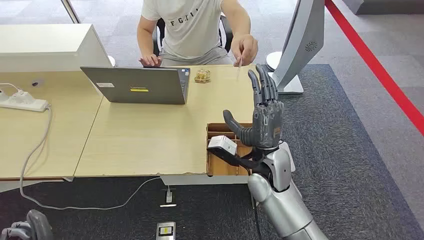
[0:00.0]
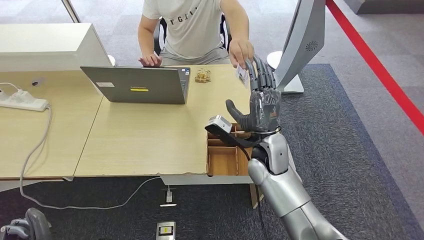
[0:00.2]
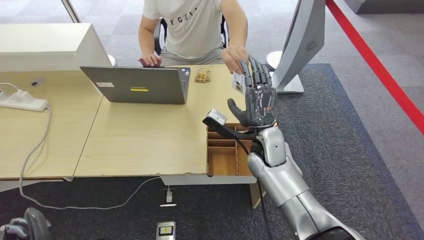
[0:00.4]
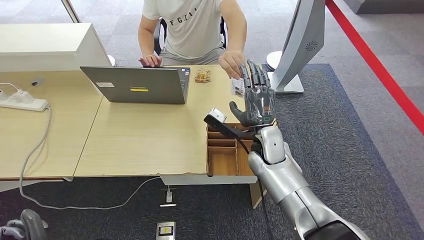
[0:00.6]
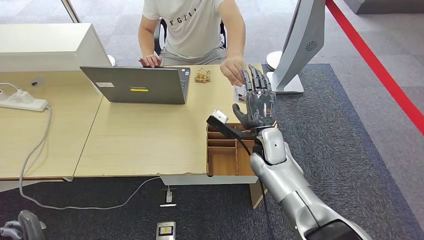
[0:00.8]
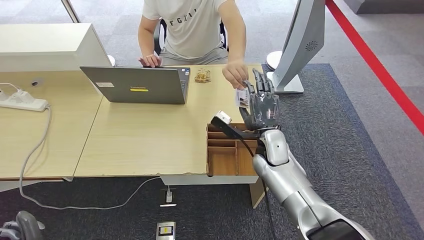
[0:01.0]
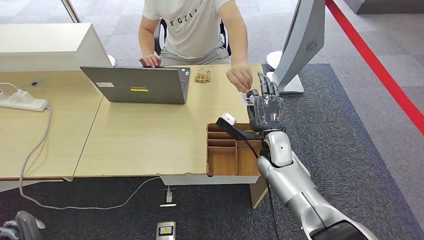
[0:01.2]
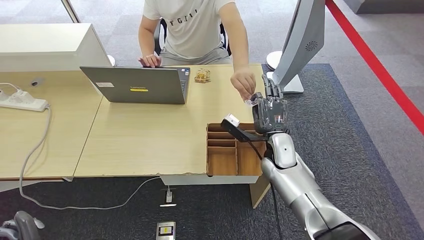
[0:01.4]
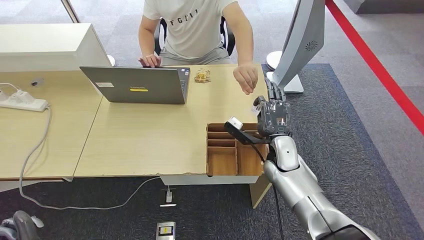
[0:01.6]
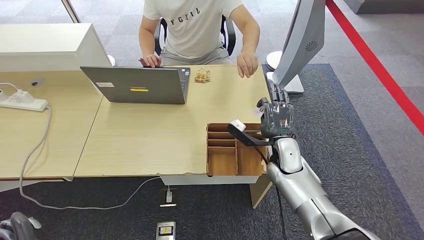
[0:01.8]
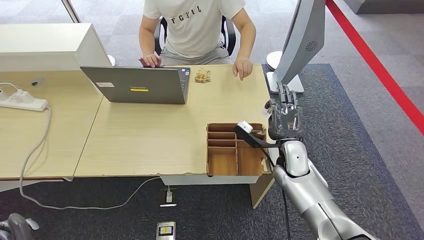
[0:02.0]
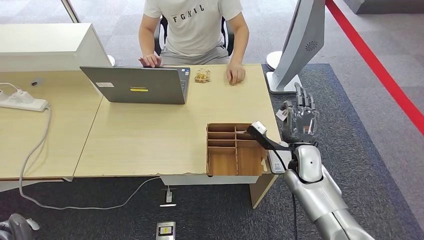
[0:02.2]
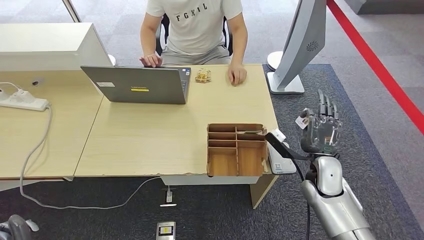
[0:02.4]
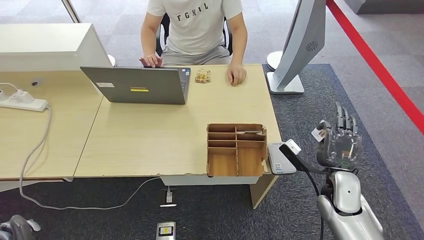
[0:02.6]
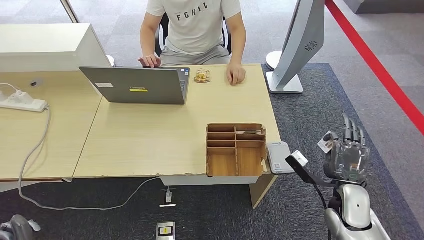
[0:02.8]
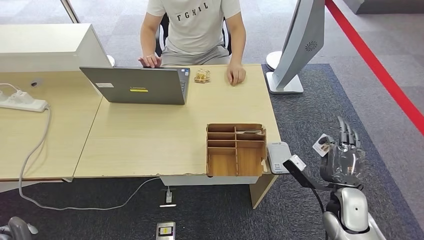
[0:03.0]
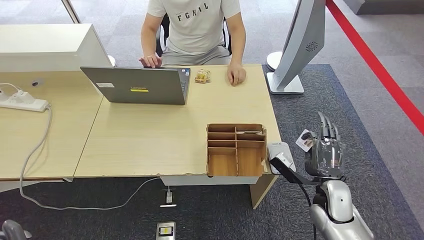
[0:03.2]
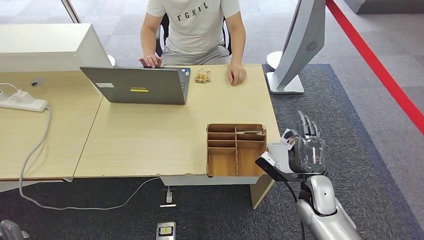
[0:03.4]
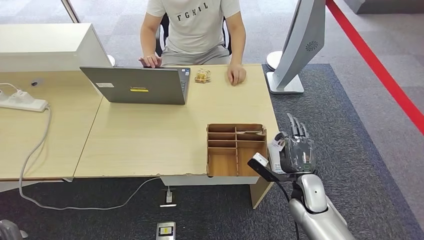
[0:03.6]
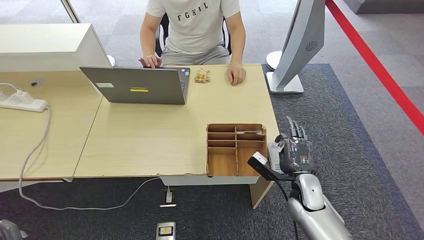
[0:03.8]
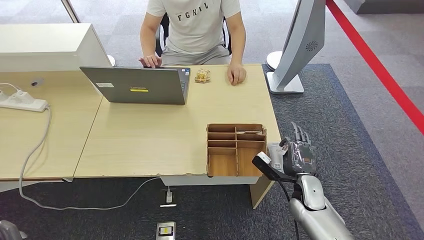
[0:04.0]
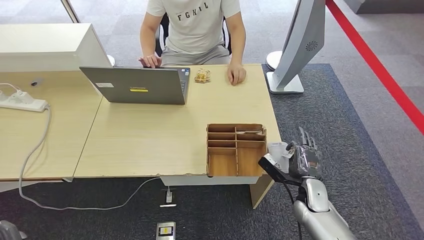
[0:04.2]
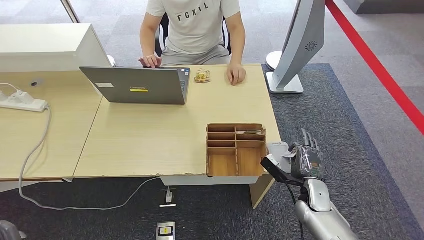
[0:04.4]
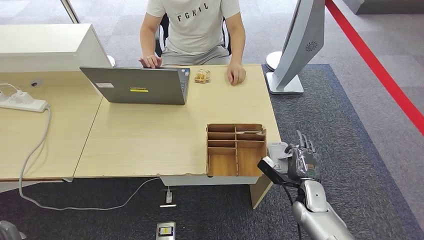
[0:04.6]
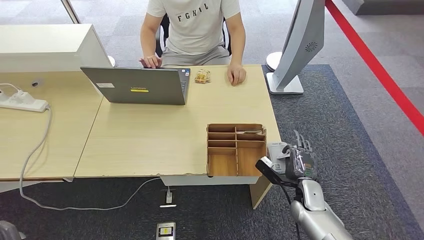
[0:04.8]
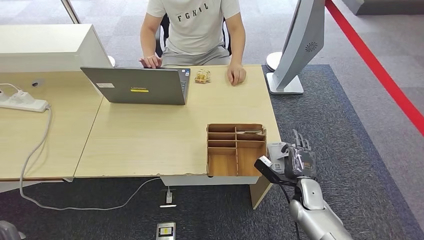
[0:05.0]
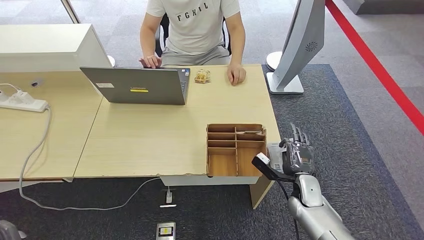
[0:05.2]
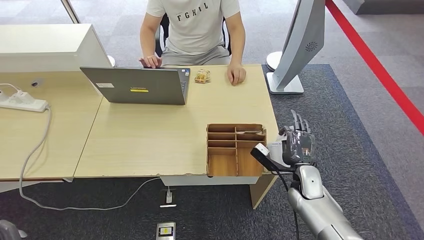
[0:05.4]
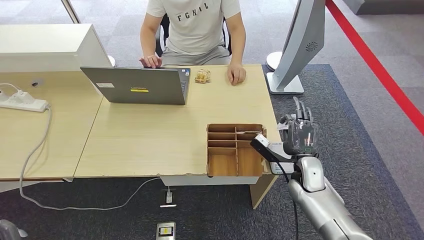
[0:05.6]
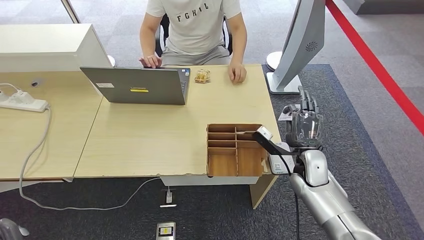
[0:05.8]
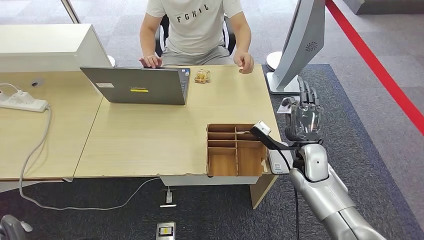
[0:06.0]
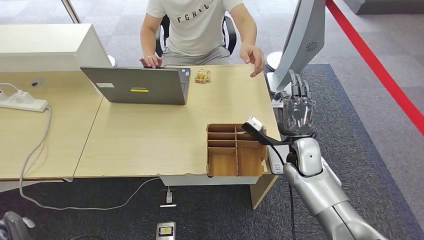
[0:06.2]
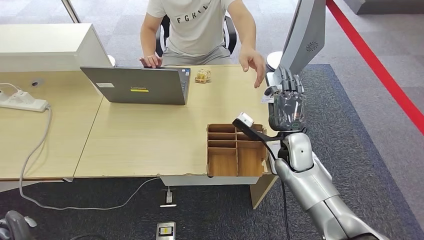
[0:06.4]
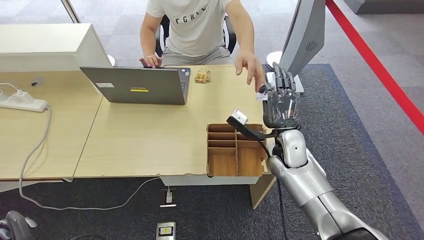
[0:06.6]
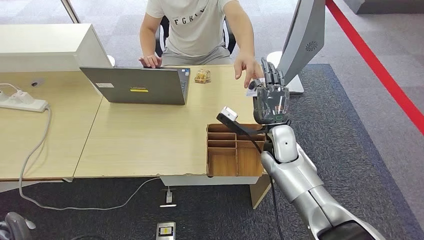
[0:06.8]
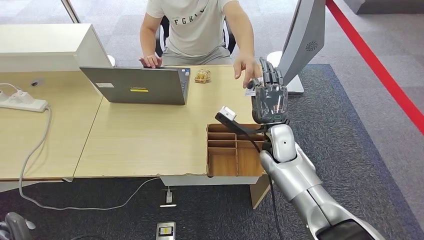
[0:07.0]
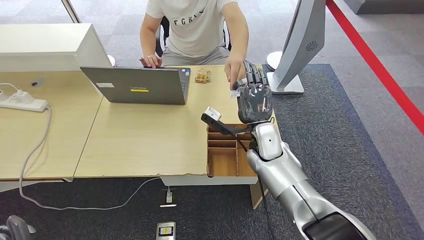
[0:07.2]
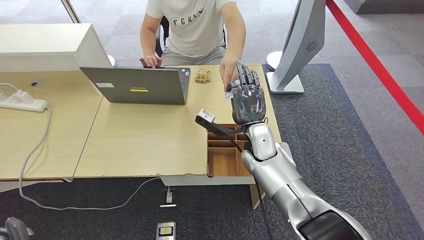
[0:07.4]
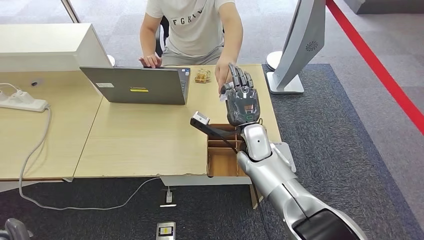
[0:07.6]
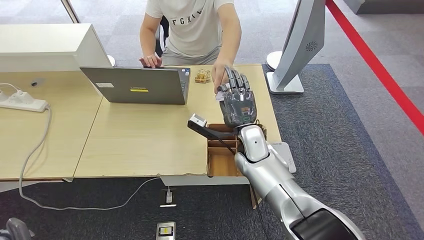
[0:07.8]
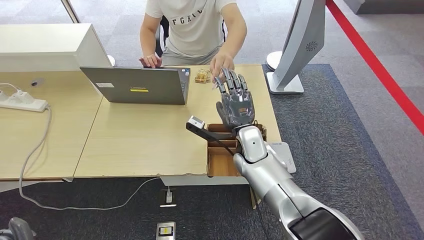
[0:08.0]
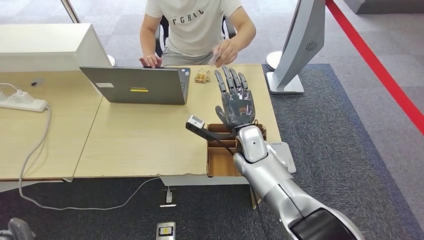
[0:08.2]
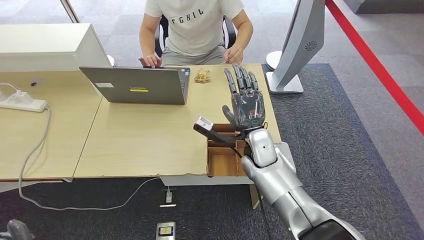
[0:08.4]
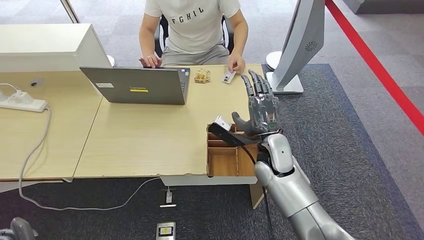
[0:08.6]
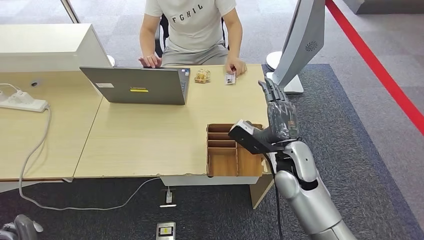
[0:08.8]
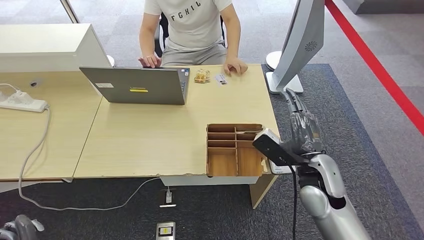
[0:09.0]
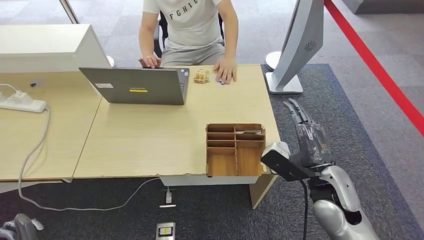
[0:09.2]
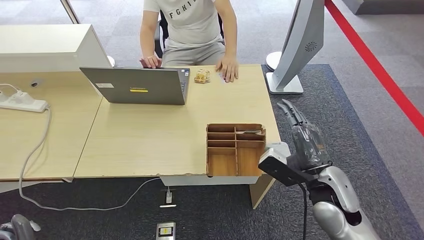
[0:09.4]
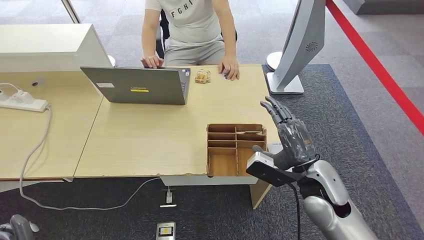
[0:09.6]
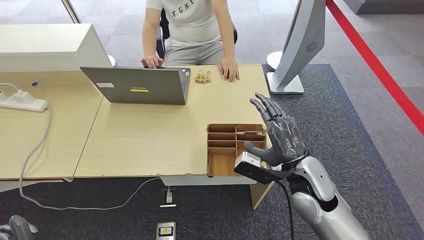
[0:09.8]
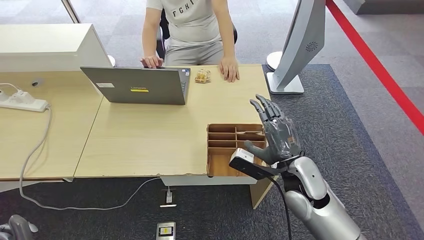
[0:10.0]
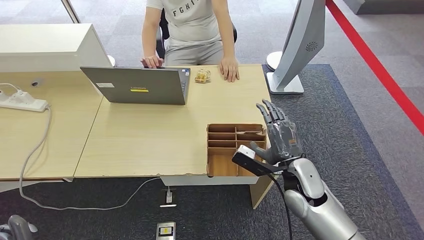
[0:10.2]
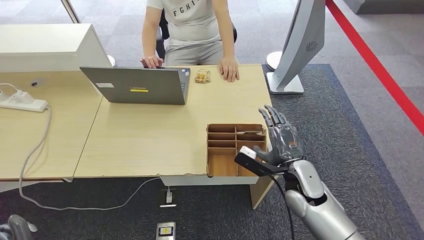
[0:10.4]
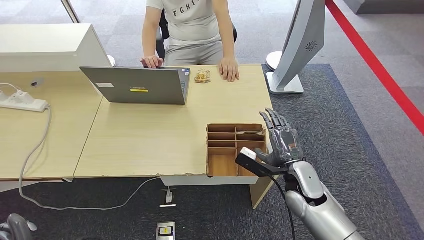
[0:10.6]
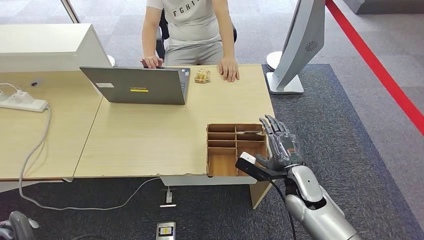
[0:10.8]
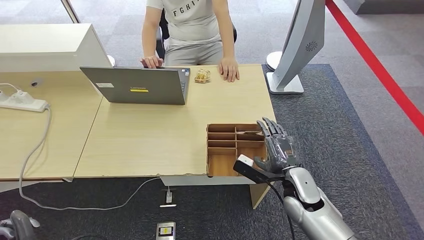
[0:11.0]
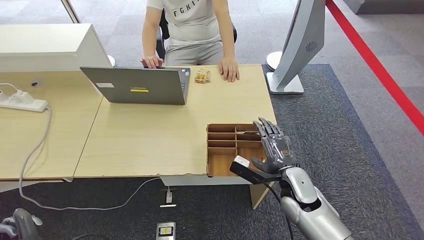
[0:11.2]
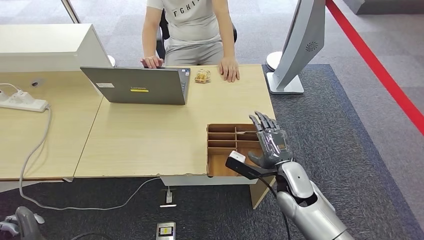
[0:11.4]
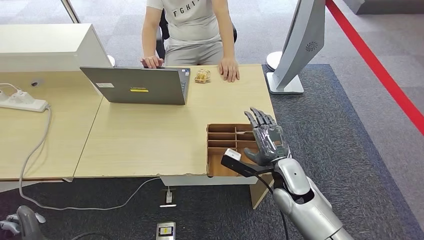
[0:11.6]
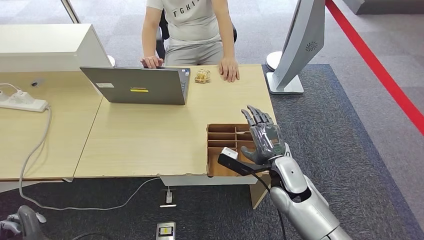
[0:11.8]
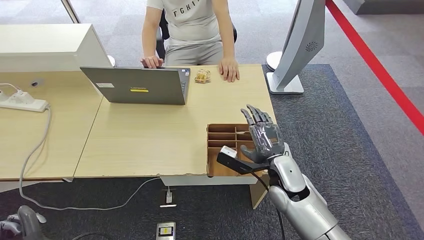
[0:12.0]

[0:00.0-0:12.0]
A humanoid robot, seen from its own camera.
Step, 0:00.0 to 0:01.8: Take the ID card from the person's hand.
Step, 0:02.0 to 0:05.8: Place the ID card on the card reader.
Step, 0:06.2 to 0:08.6: Hand the ID card to the person.
0:01.6 to 0:03.0: The right hand shifts some 20 cm backward and to the right.
0:03.0 to 0:04.4: The right hand goes approximately 10 cm downward and forward.
0:04.4 to 0:06.0: The right hand shifts approximately 15 cm upward and forward.
0:06.0 to 0:07.6: The right hand heads to the left, covering some 15 cm.
0:07.6 to 0:09.0: The right hand travels to the right and backward by about 15 cm.
0:09.0 to 0:10.4: The right hand shifts approximately 5 cm downward.
0:10.4 to 0:12.0: The hands stay close to where they were, moving slightly.

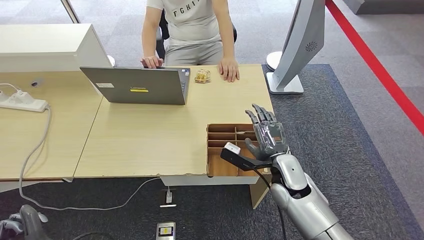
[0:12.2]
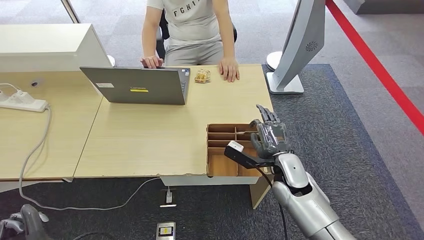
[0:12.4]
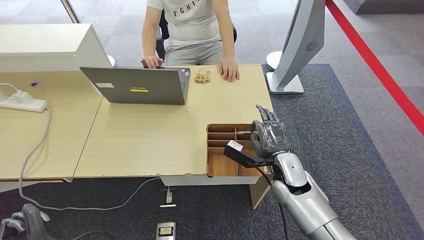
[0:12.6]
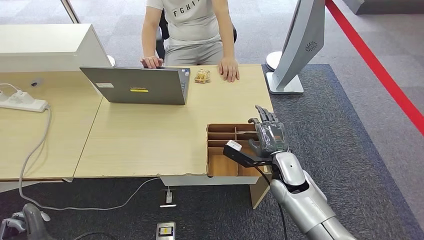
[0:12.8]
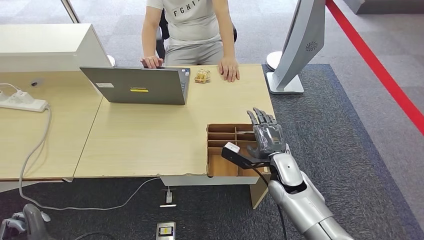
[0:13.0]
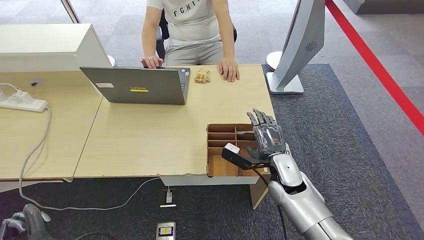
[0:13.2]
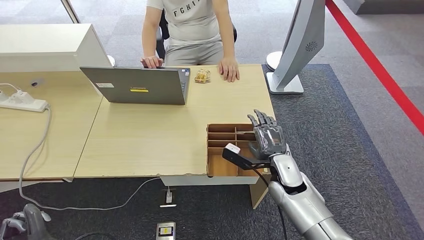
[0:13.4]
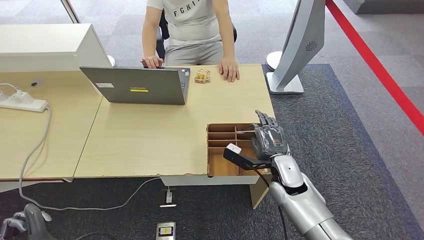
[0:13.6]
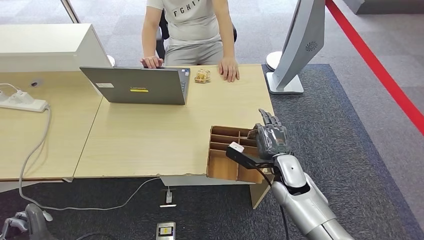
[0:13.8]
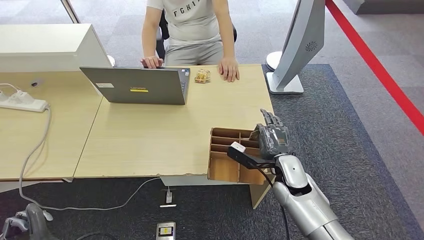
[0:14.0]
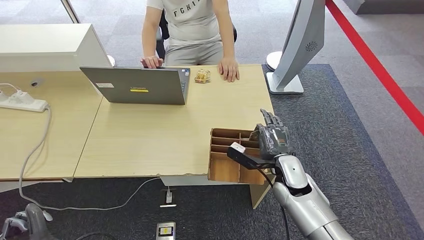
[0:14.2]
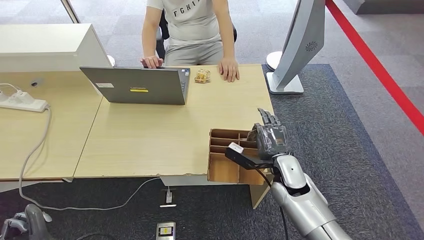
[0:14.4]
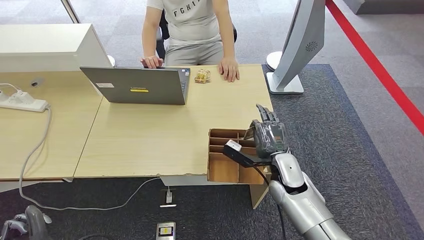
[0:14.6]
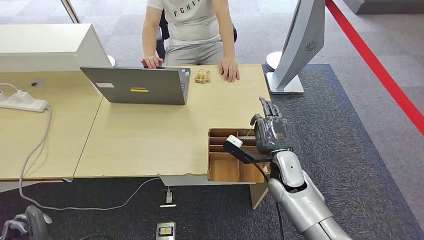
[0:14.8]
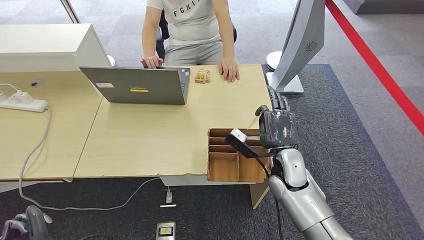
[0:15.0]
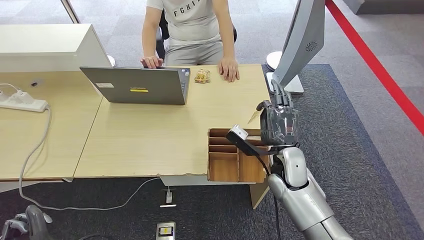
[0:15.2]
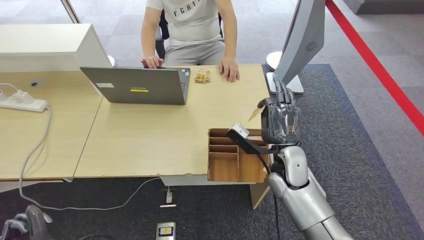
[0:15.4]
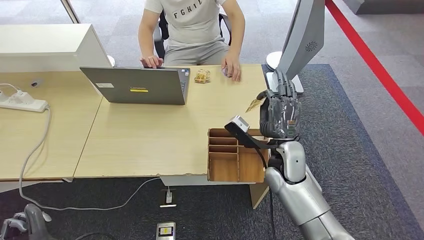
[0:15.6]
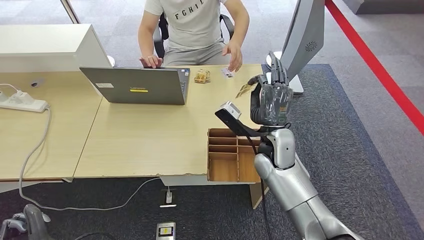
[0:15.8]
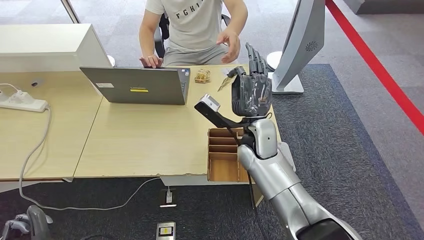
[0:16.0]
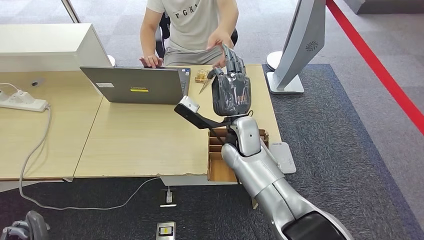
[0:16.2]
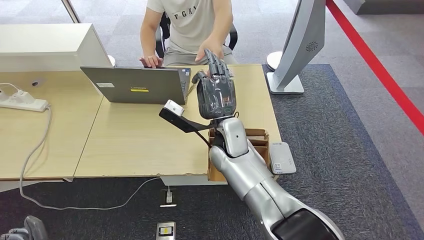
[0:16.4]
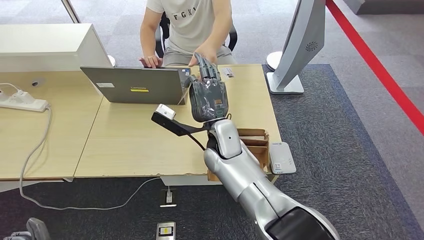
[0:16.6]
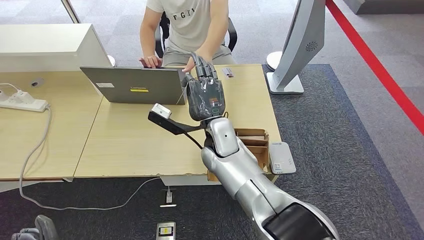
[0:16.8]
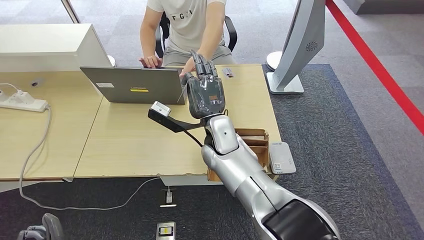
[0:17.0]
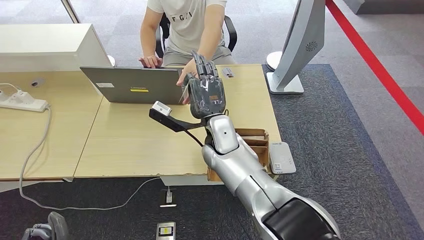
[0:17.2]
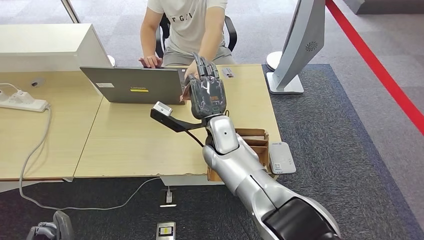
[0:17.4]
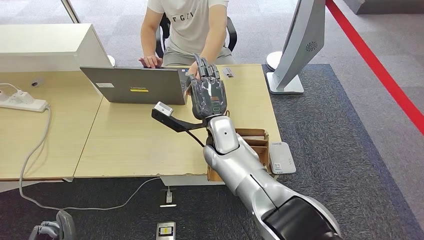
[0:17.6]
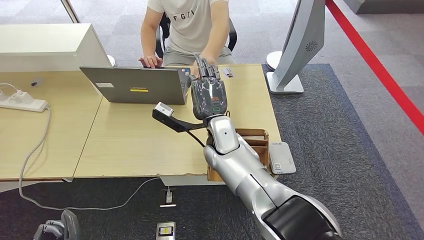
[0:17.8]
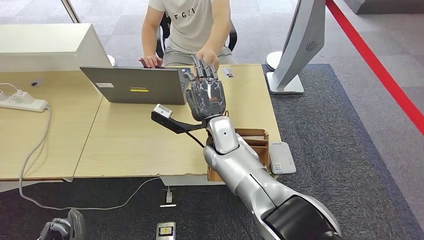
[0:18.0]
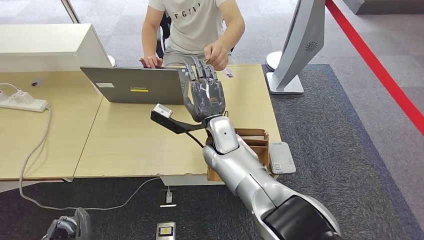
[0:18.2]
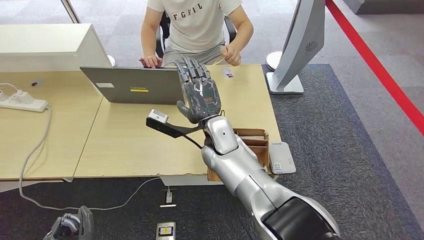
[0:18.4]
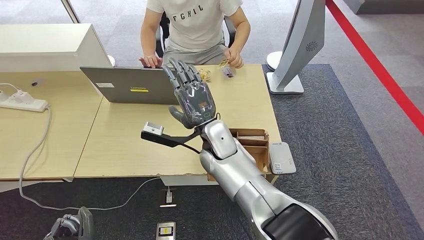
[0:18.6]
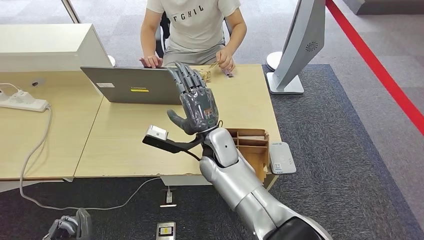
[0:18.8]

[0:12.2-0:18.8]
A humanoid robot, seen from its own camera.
Step, 0:12.2 to 0:15.4: Pick up the room key from the key card box.
0:12.2 to 0:13.8: The hands stay close to where they were, moving slightly.
0:13.8 to 0:15.4: The right hand goes about 5 cm upward.
0:15.4 to 0:17.2: The right hand travels to the left by some 15 cm.
0:17.2 to 0:18.8: There are only small adjustments of the hands.
